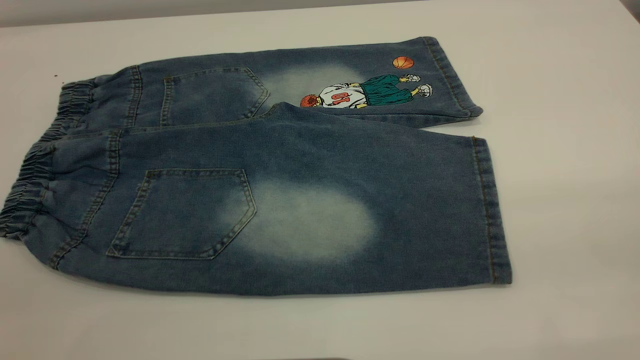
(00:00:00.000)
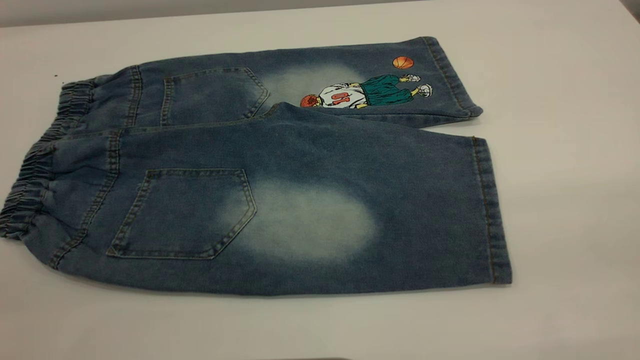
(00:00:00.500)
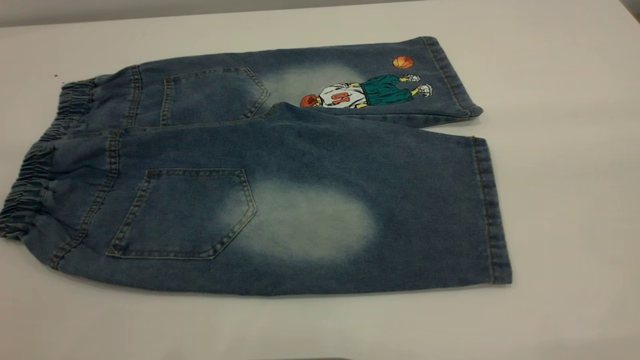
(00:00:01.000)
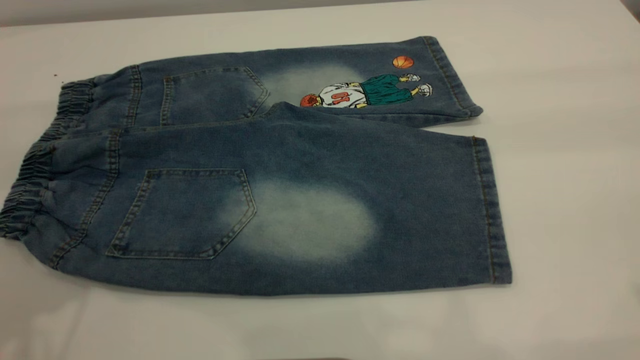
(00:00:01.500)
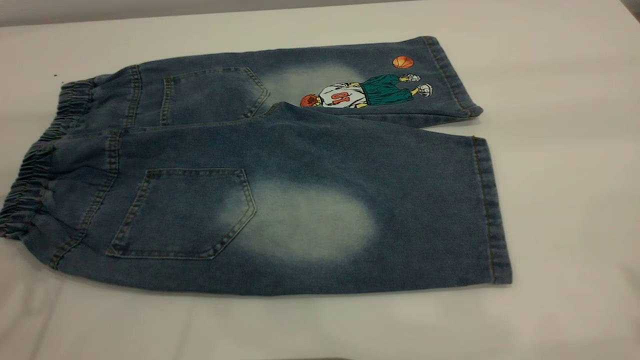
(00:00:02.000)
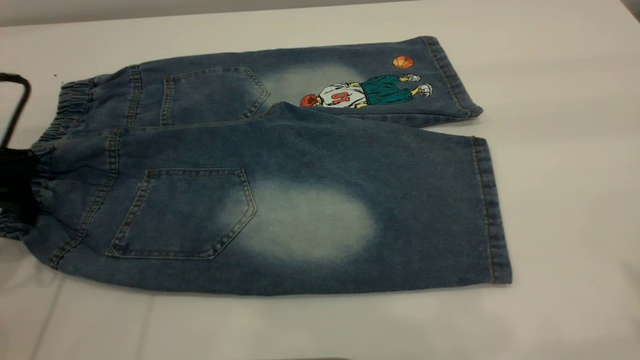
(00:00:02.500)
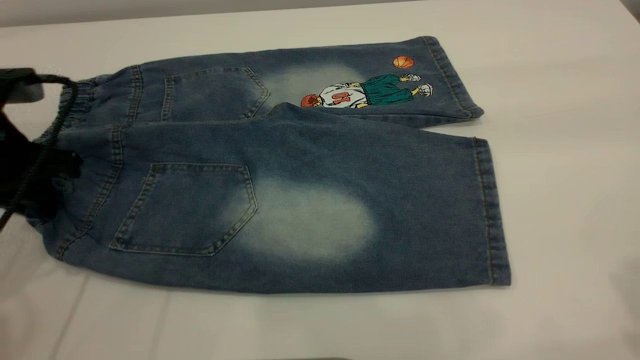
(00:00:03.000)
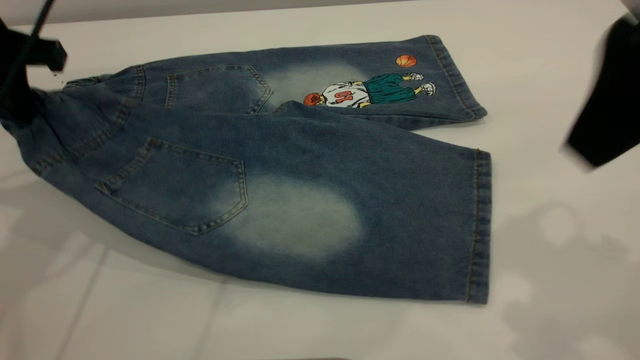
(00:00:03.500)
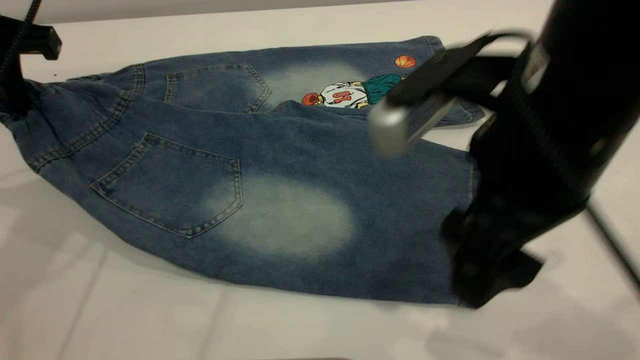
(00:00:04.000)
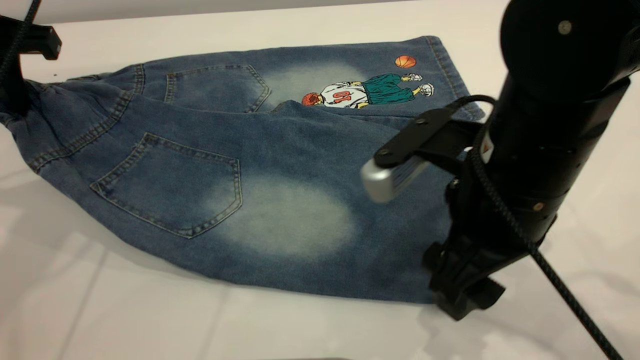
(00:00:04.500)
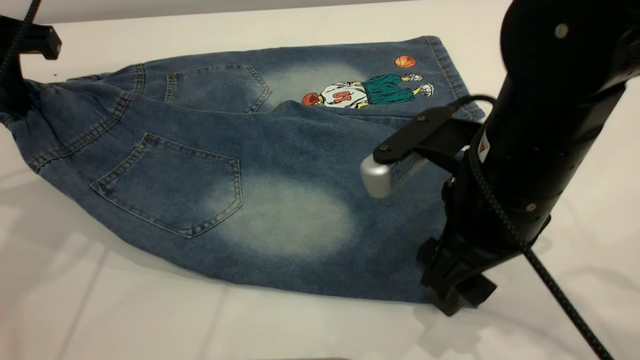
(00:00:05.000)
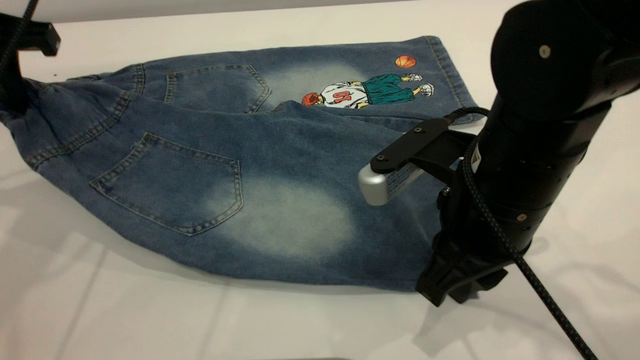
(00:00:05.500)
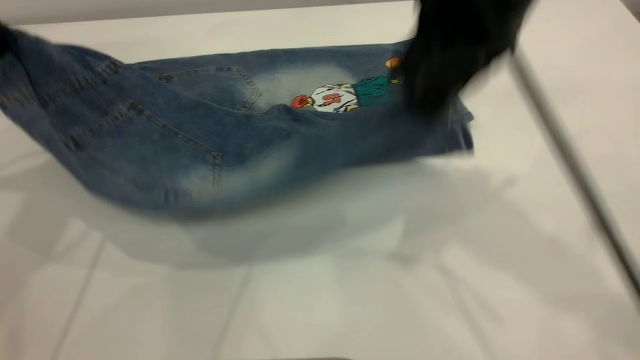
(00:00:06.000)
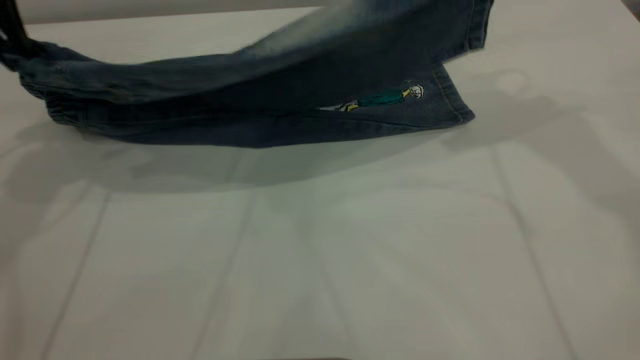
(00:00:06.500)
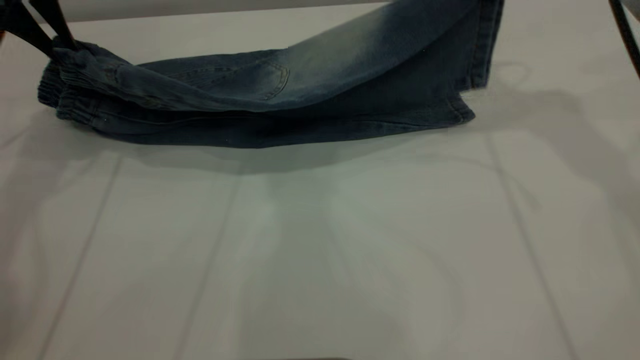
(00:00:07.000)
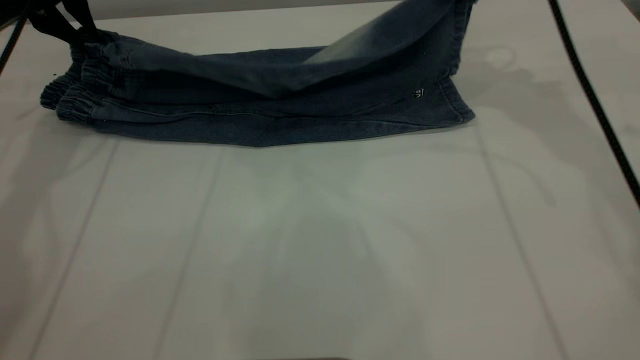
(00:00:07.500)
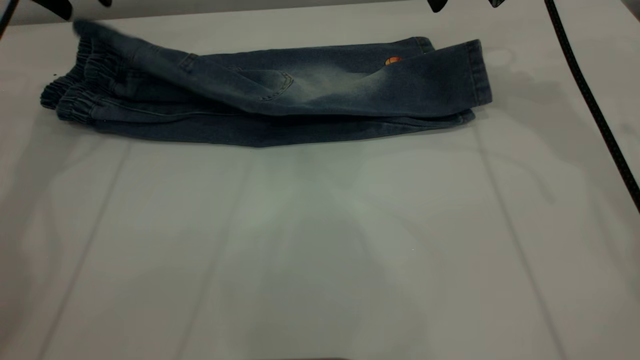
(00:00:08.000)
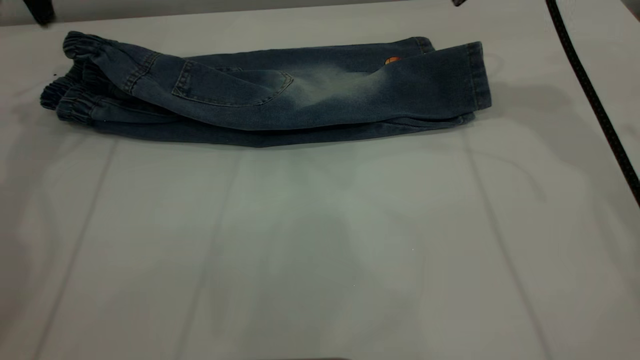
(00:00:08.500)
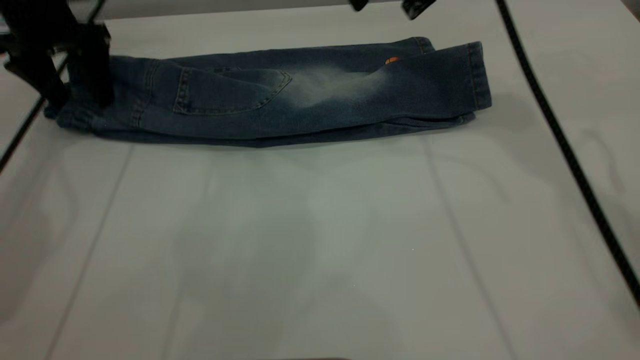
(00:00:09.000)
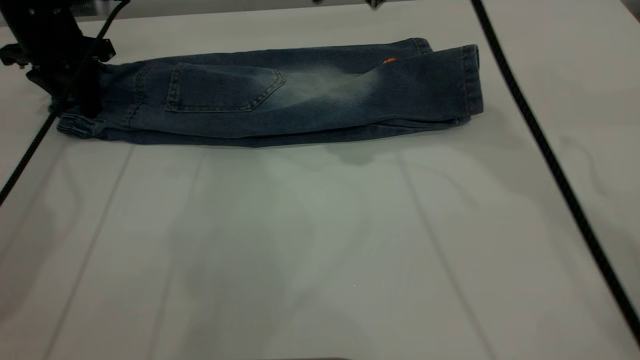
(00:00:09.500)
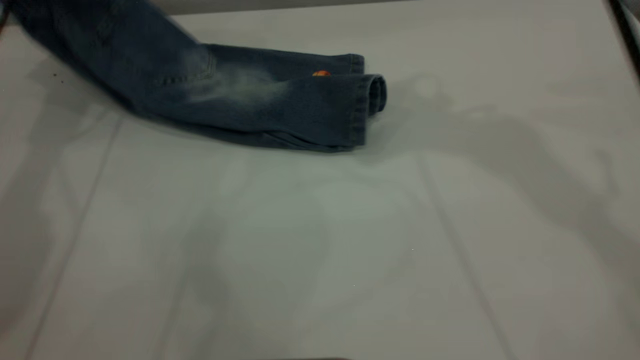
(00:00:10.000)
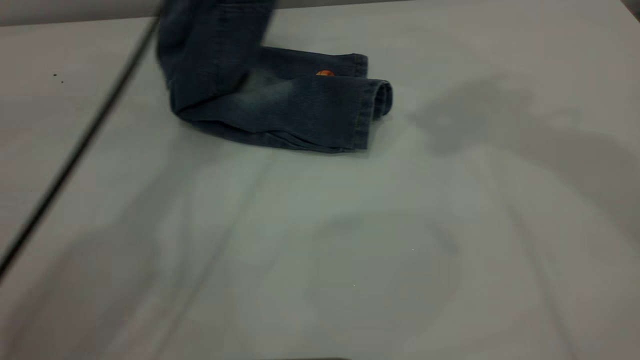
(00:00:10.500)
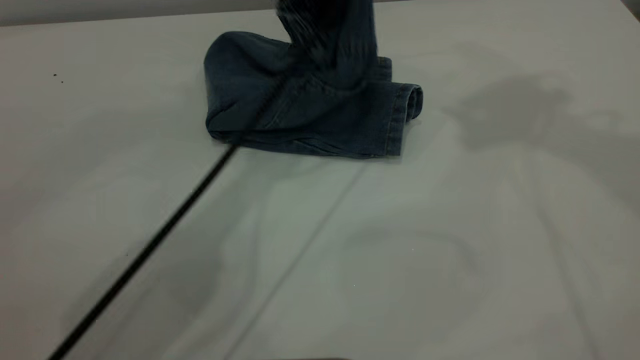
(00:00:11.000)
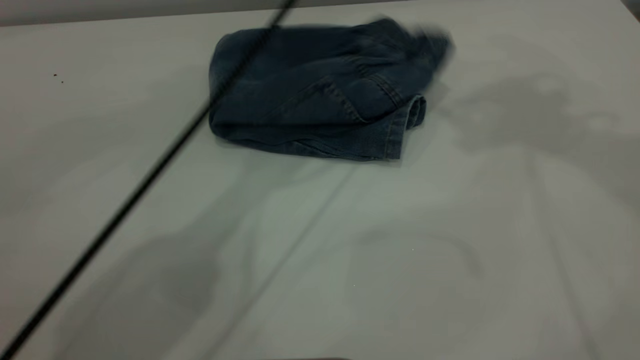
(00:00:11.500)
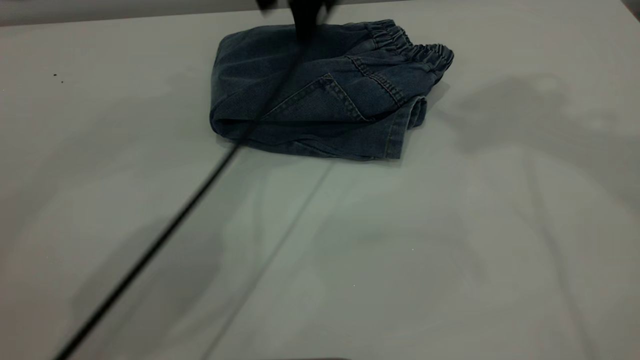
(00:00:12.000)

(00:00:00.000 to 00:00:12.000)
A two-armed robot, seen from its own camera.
Step, 00:00:00.000 - 00:00:08.000: Fold the bottom of the pants upward.
Step, 00:00:08.500 - 00:00:11.500: Fold the pants from left to right.
00:00:02.000 - 00:00:04.000: The right gripper travels downward and to the left by approximately 25 cm. The left gripper heads forward, covering roughly 10 cm, travels downward and back again, about 10 cm each way, and closes its fingers.
00:00:04.000 - 00:00:06.000: The left gripper moves upward, about 5 cm. The right gripper goes about 15 cm forward and upward, and closes.
00:00:06.000 - 00:00:08.000: The left gripper travels forward by approximately 10 cm, and opens. Meanwhile the right gripper shifts roughly 15 cm forward and to the right, and opens.
00:00:08.000 - 00:00:10.000: The left gripper is displaced forward by approximately 5 cm, reaches approximately 15 cm downward, then returns, and closes up. Meanwhile the right gripper shifts about 20 cm upward, to the left and backward.
00:00:10.000 - 00:00:12.000: The left gripper is displaced to the right by about 30 cm, and opens up, while the right gripper heads to the right and upward, covering roughly 10 cm.

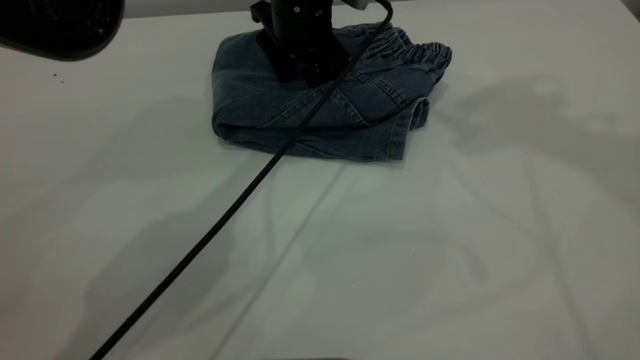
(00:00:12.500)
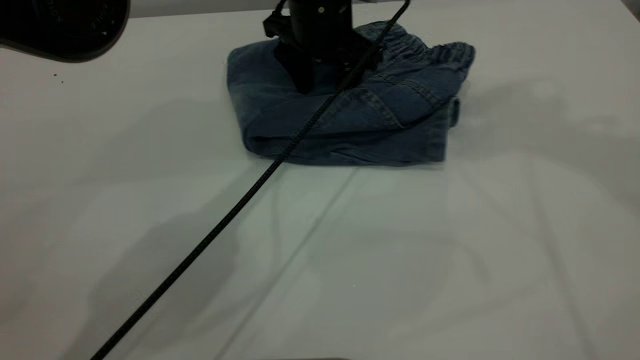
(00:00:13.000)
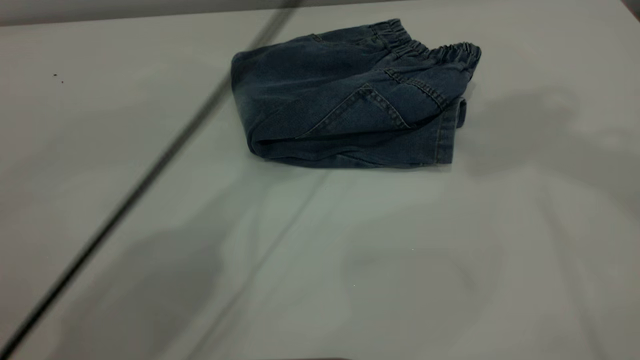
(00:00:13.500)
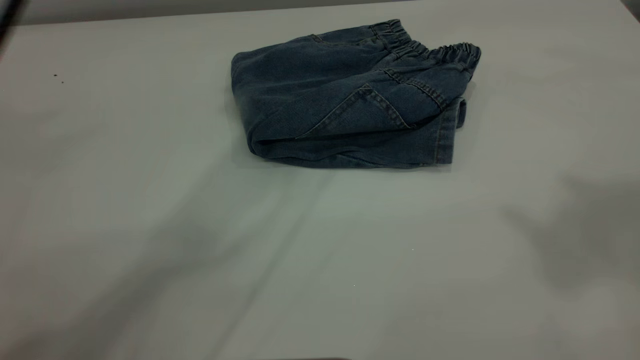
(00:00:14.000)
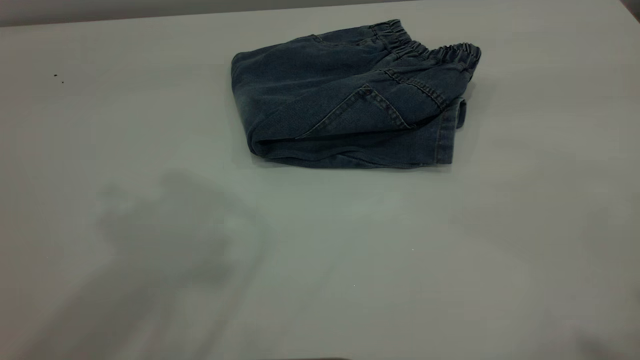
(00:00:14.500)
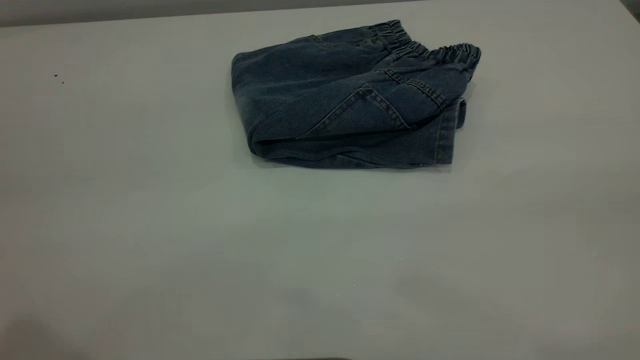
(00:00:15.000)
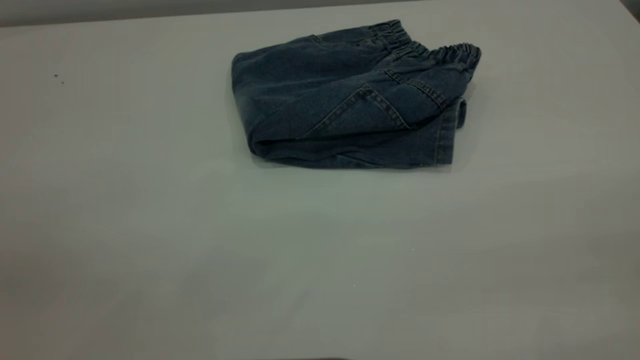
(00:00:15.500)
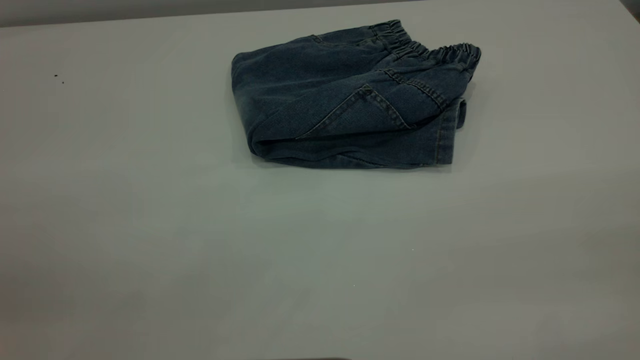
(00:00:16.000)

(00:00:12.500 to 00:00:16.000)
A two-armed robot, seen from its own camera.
00:00:12.500 - 00:00:14.500: The right gripper is displaced backward by some 25 cm. The left gripper moves upward, backward and to the left, approximately 40 cm.
